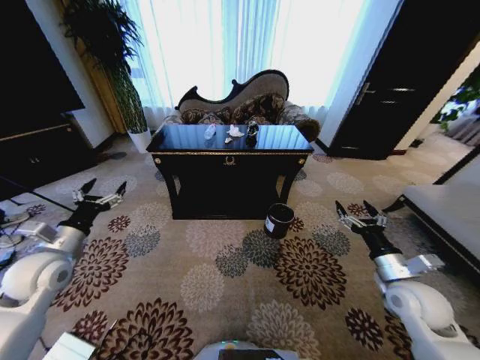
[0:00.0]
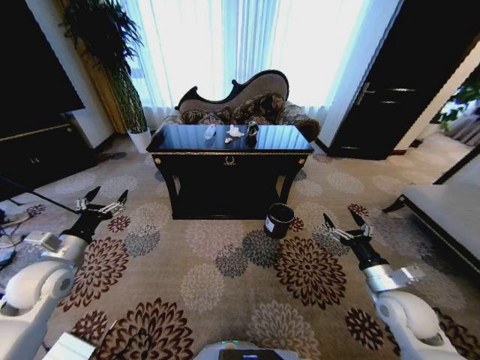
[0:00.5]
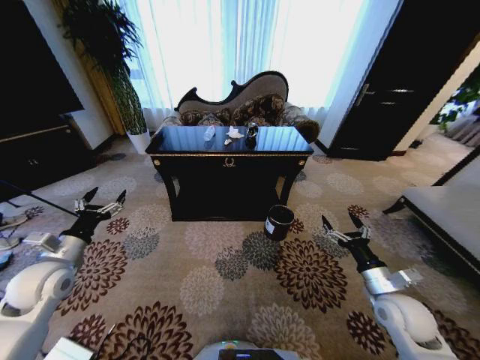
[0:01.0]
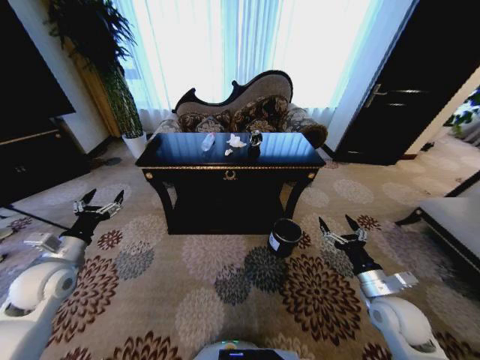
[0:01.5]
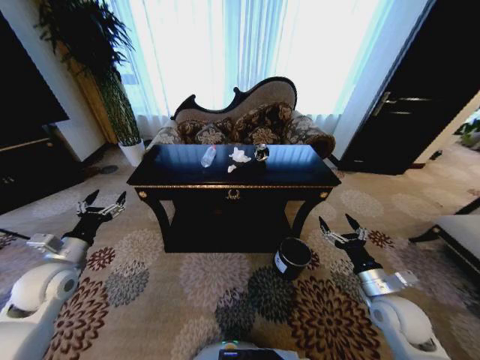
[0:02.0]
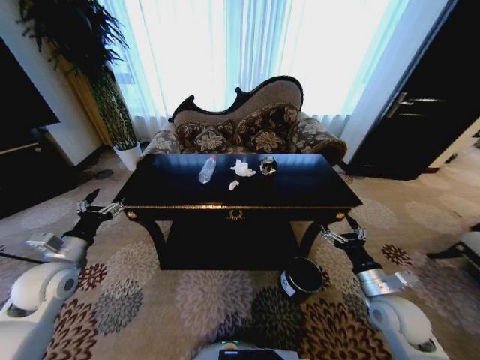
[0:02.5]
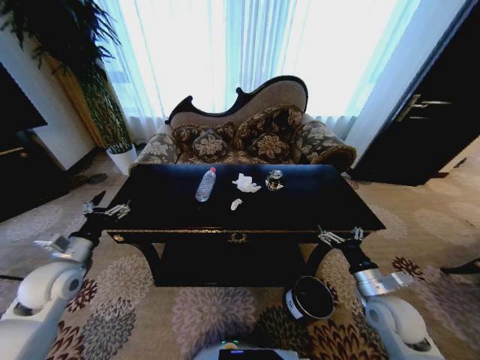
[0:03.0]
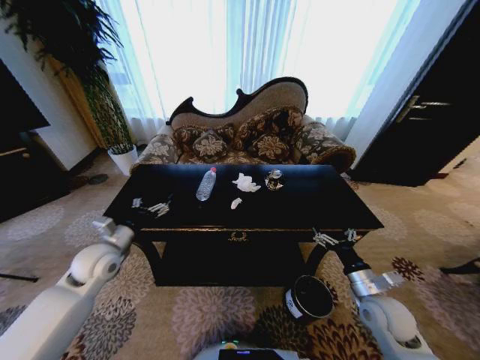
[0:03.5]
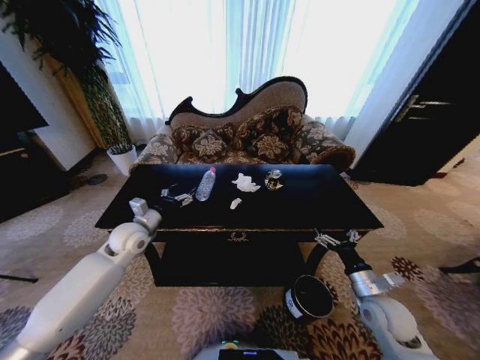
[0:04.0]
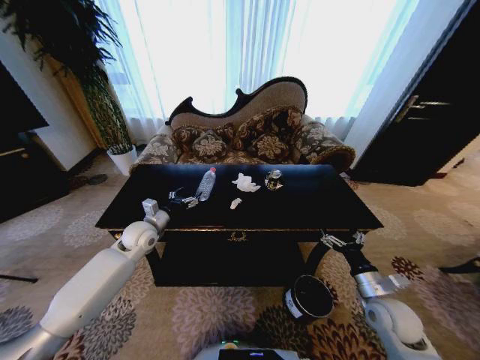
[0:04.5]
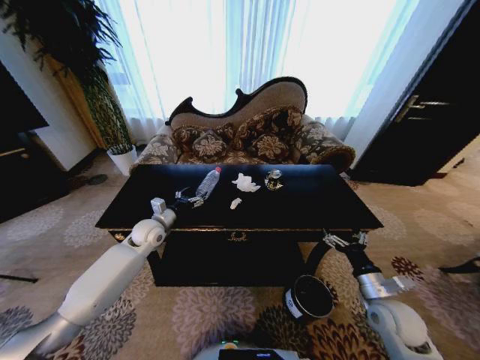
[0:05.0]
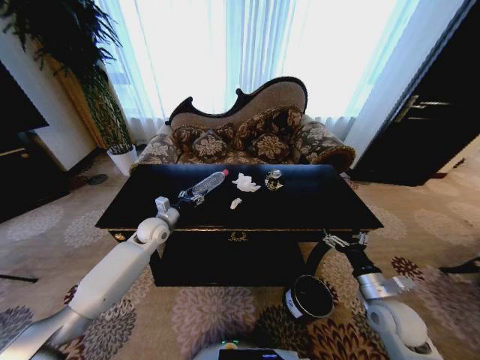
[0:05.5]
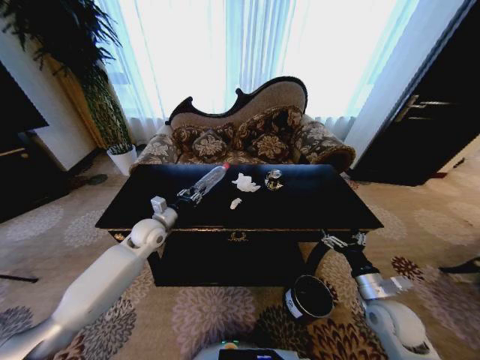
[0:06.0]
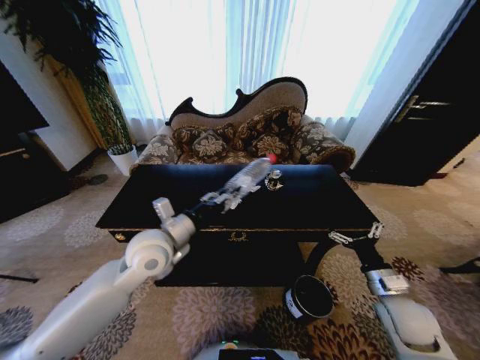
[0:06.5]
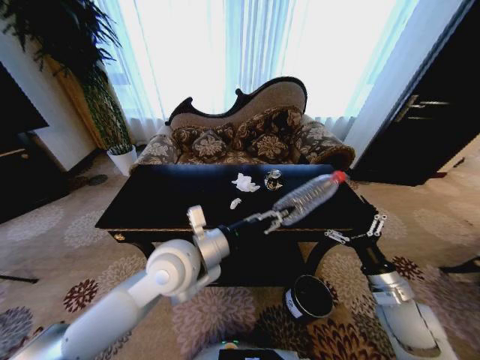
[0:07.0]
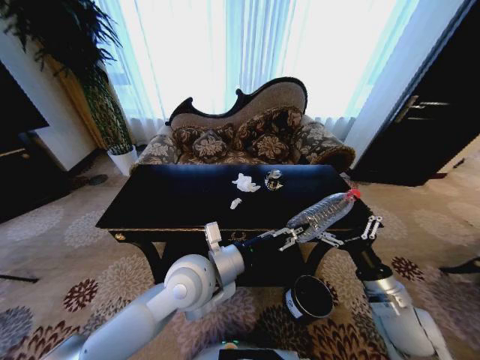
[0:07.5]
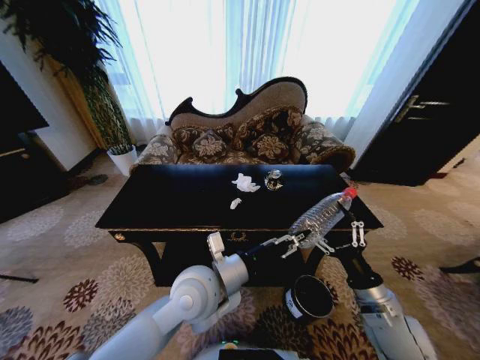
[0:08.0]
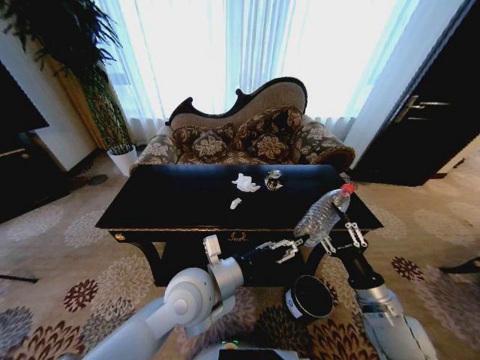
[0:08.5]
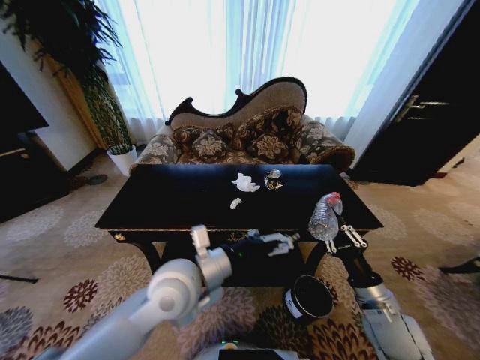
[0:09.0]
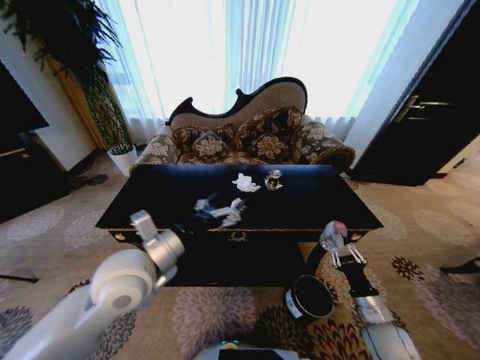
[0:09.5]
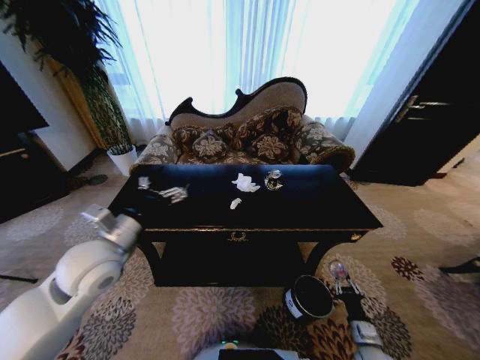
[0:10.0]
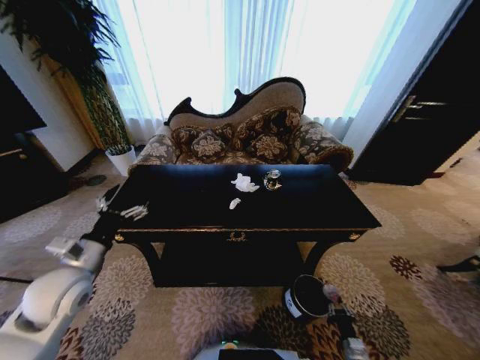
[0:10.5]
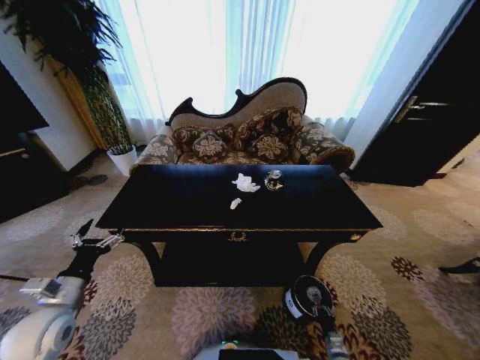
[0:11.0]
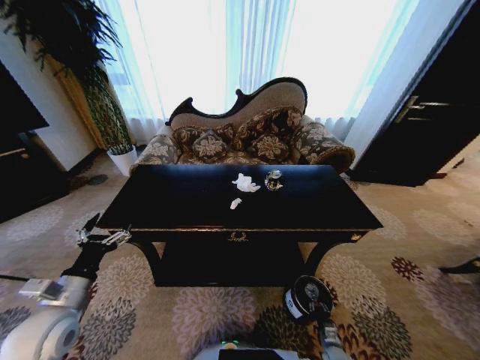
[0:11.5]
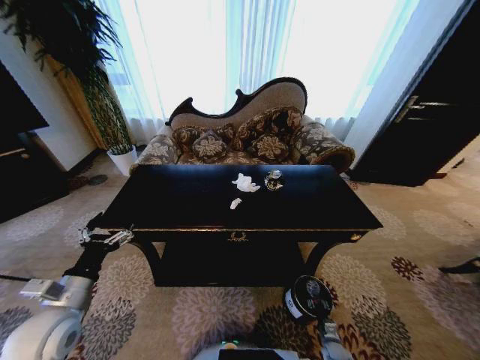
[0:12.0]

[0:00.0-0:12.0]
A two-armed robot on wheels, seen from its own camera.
Task of the whole recording: Move to the front of the table and place the trash on the table into the trash bin.
0:02.0 to 0:04.0: The left gripper shifts approximately 20 cm forward and to the right.
0:04.0 to 0:06.0: The left gripper closes up.
0:06.0 to 0:08.0: The right gripper shifts approximately 5 cm to the left, while the left gripper moves to the right and backward, some 25 cm.
0:08.0 to 0:10.0: The right gripper heads downward, covering approximately 25 cm, and closes its fingers, while the left gripper is displaced to the left by some 20 cm, and opens.
0:10.0 to 0:12.0: The right gripper is displaced downward by some 15 cm; the left gripper moves downward, to the left and backward, about 15 cm.

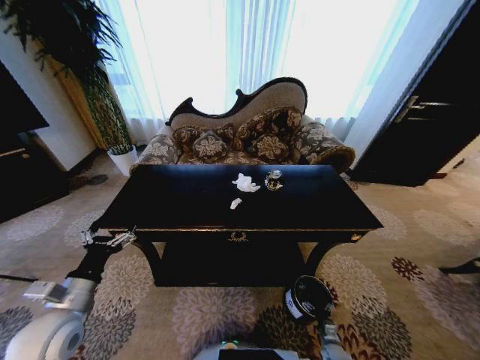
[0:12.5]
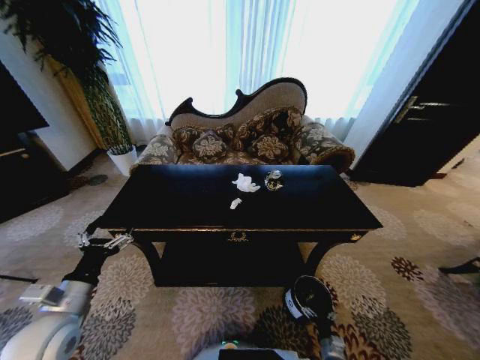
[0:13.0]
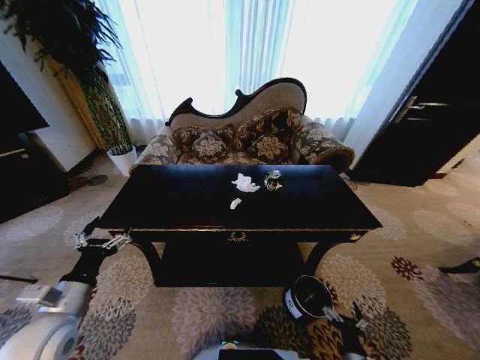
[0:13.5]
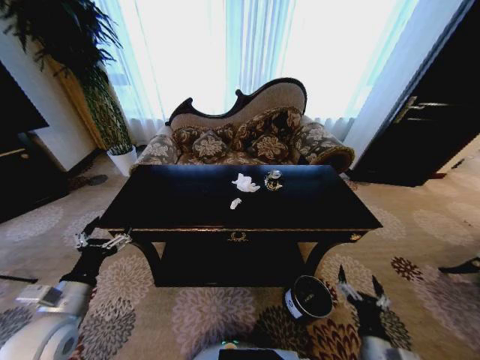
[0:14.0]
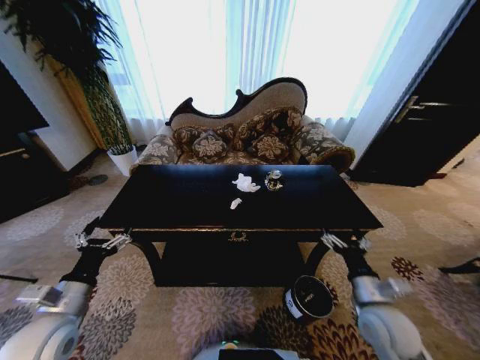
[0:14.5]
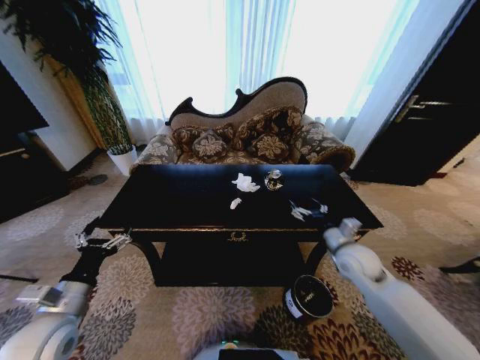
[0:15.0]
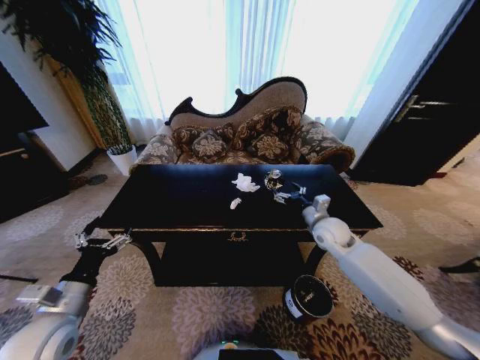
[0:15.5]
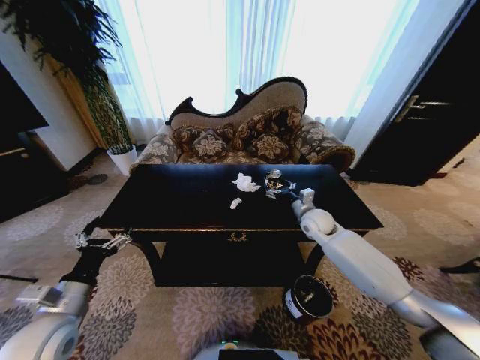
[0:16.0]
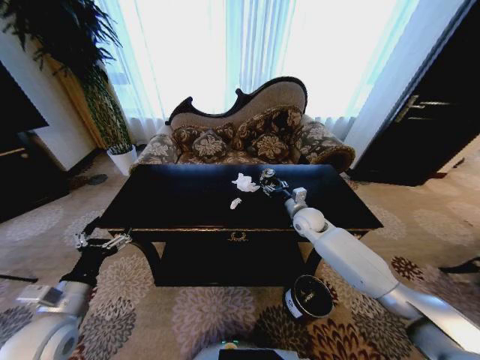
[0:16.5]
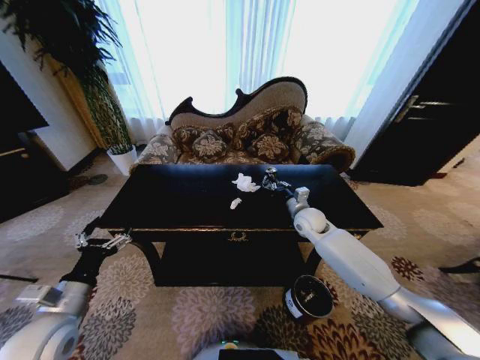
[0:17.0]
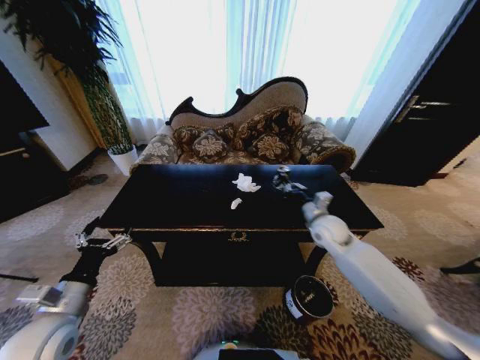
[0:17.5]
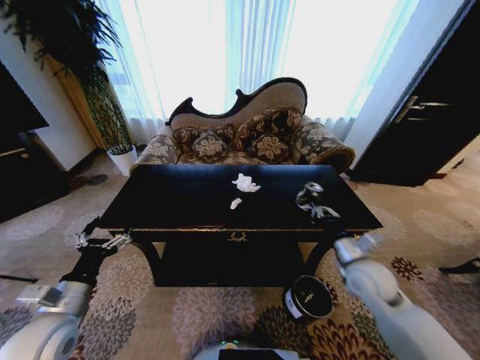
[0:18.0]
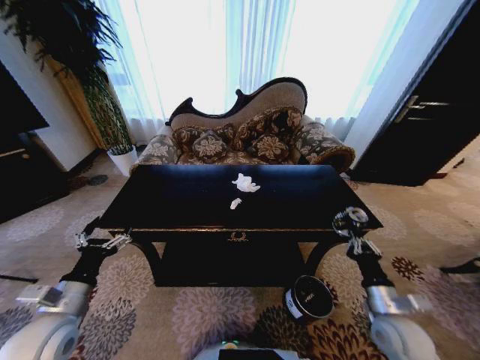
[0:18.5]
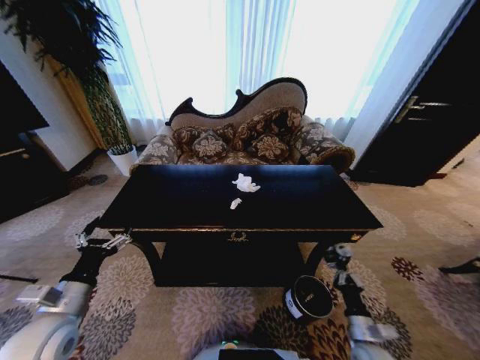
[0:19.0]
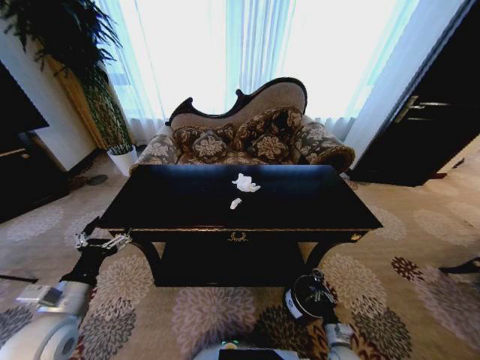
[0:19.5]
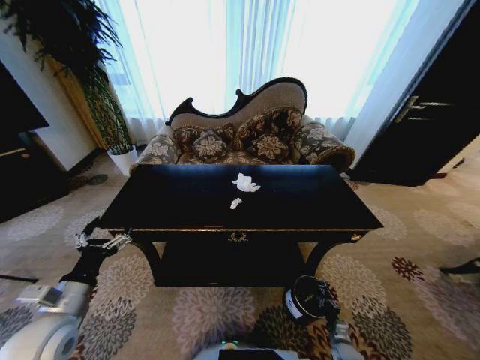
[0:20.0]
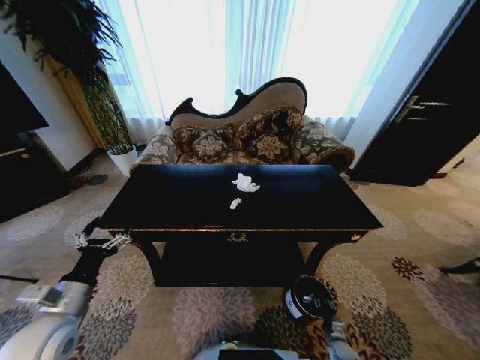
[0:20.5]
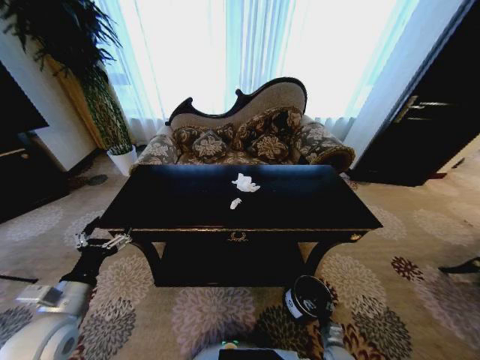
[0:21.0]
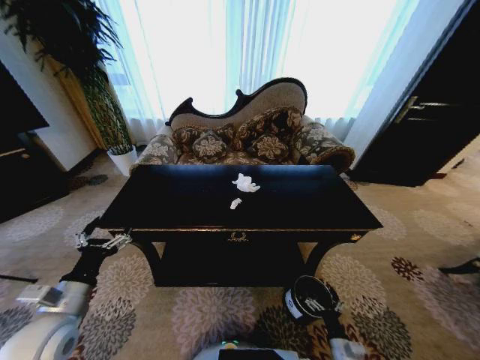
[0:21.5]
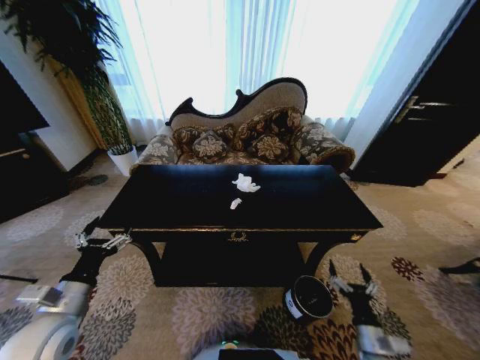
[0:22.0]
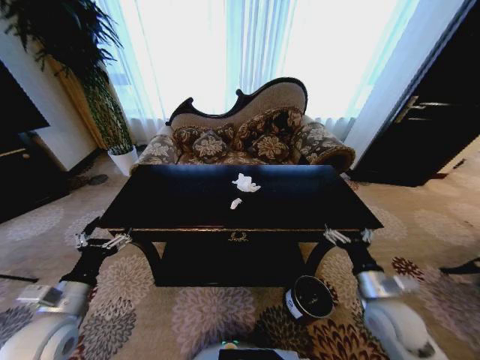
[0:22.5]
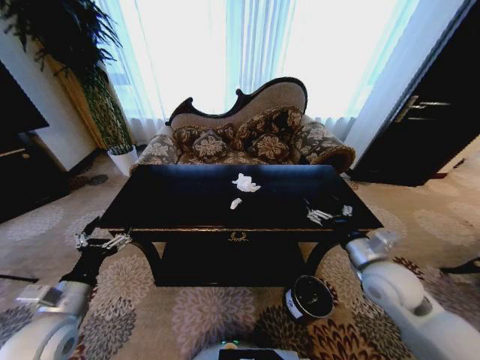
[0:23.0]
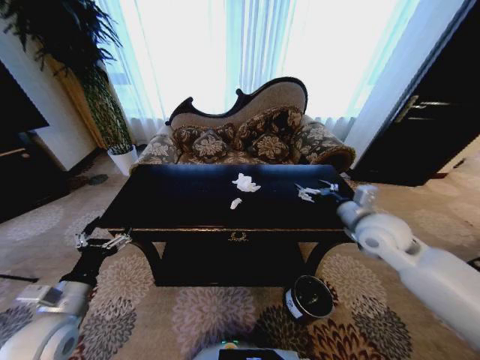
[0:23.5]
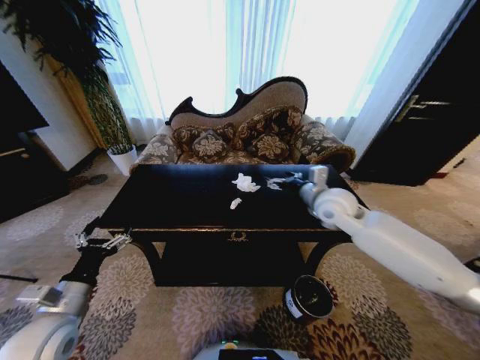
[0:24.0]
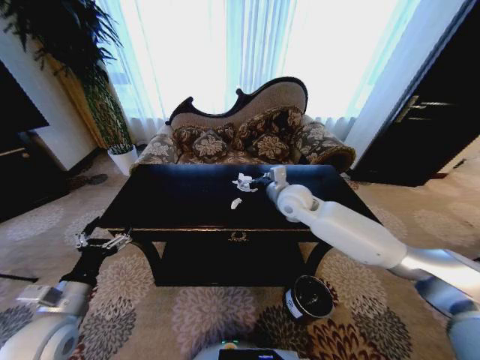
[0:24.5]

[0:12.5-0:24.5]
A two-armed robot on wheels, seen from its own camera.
Task of the whole recording: Move to the front of the table and place the trash on the table into the trash bin.
0:12.5 to 0:14.5: The right gripper is displaced upward by about 40 cm.
0:14.5 to 0:16.5: The right gripper moves forward, about 30 cm.
0:16.5 to 0:18.5: The right gripper shifts about 30 cm backward, and closes up.
0:18.5 to 0:20.5: The right gripper heads downward, covering about 35 cm.
0:20.5 to 0:22.5: The right gripper is displaced upward by about 35 cm, and opens up.
0:22.5 to 0:24.5: The right gripper travels forward, to the left and upward by about 35 cm.

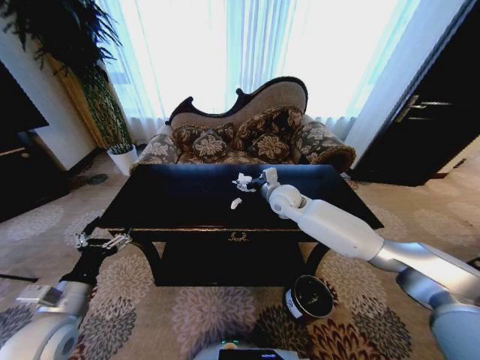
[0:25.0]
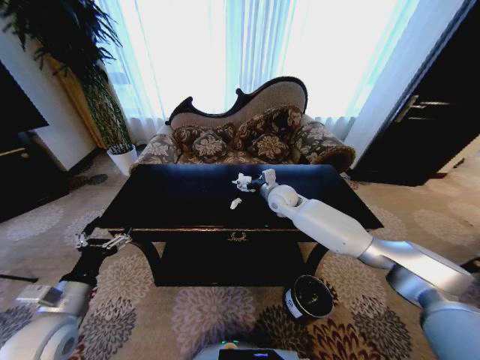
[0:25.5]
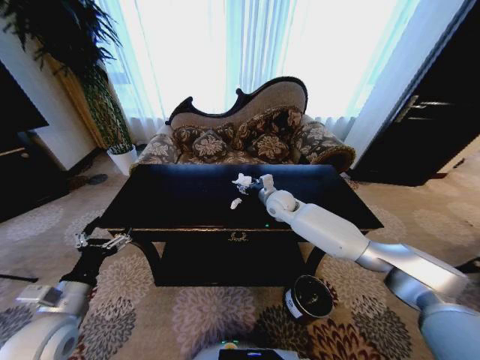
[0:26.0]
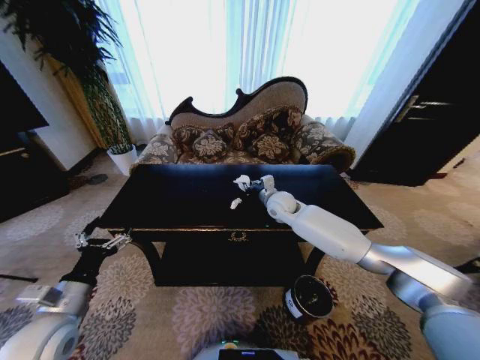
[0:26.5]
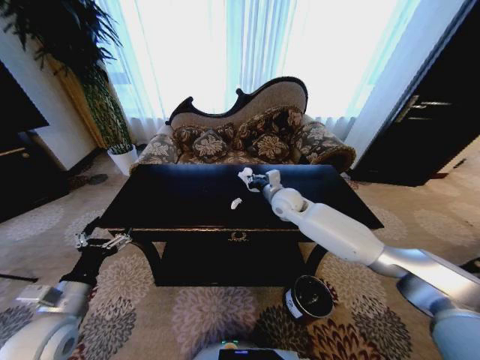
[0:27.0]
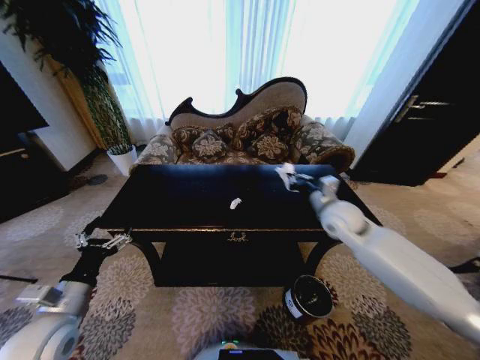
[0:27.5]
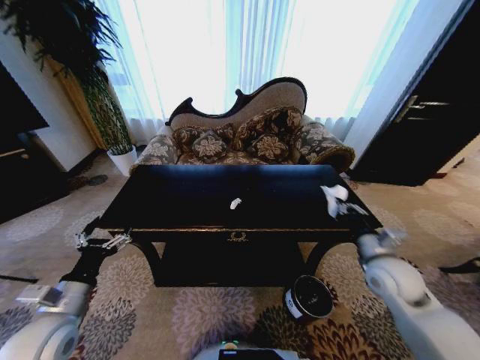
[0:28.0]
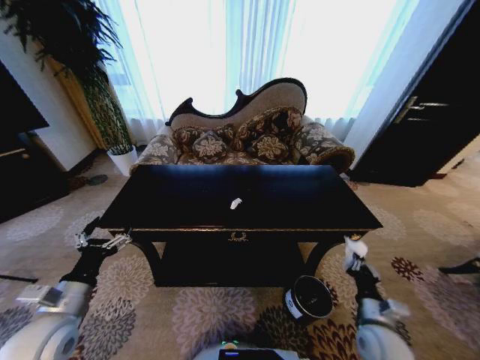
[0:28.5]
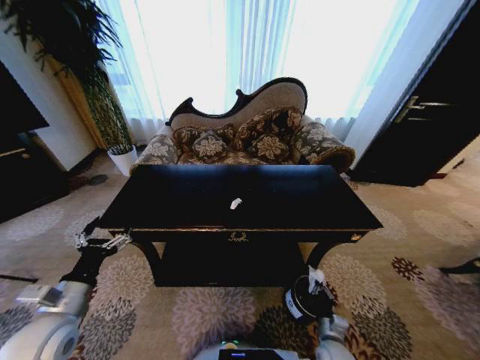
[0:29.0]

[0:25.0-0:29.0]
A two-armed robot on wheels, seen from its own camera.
Task of the whole recording: Move to the front of the table and place the trash on the table into the trash bin.
0:25.0 to 0:27.0: The right gripper closes up.
0:27.0 to 0:29.0: The right gripper moves backward and downward, about 50 cm.
